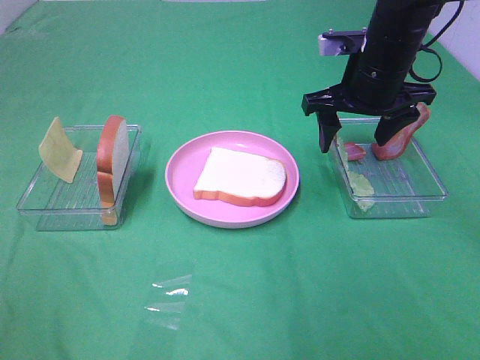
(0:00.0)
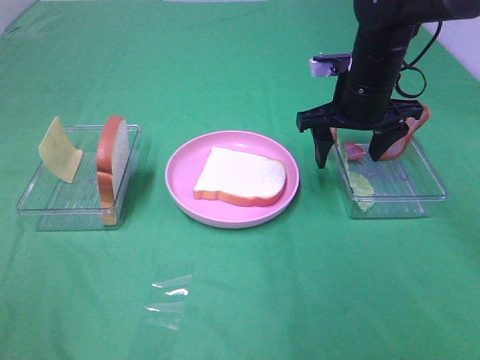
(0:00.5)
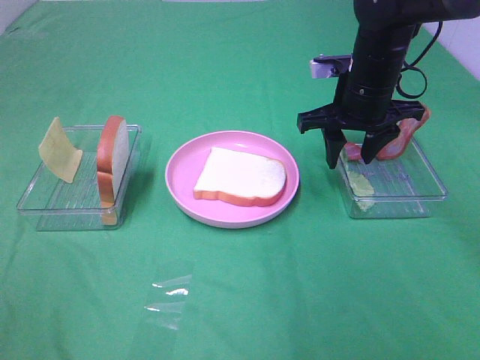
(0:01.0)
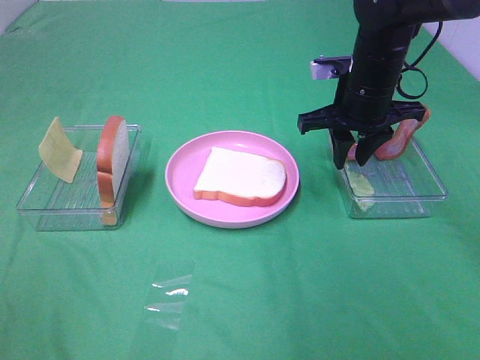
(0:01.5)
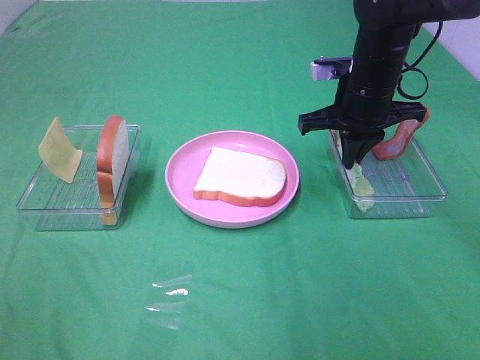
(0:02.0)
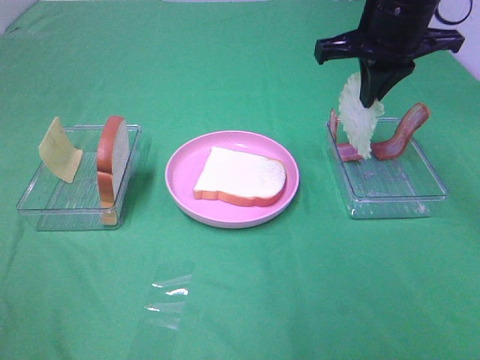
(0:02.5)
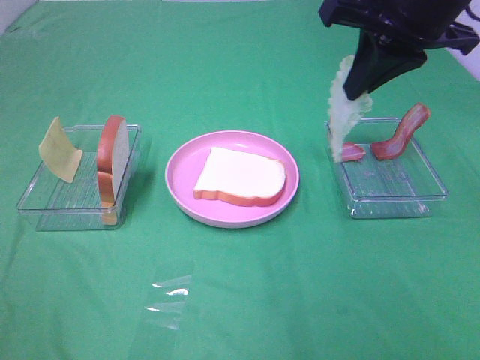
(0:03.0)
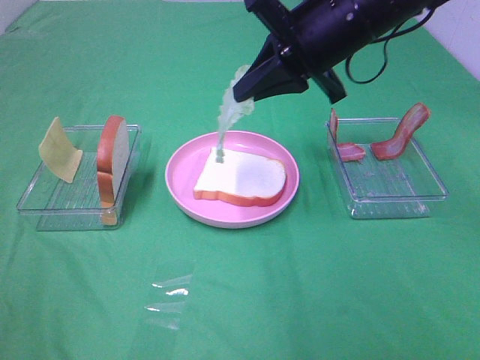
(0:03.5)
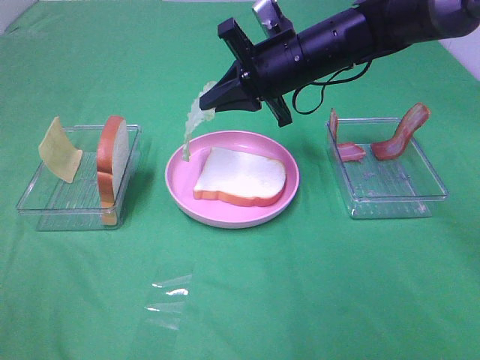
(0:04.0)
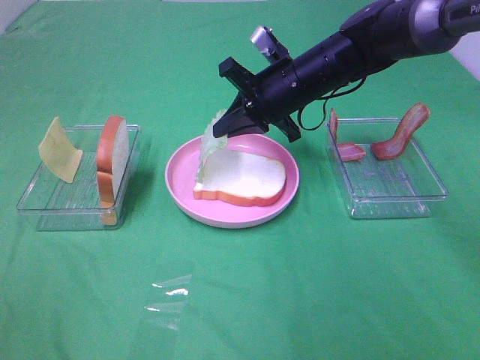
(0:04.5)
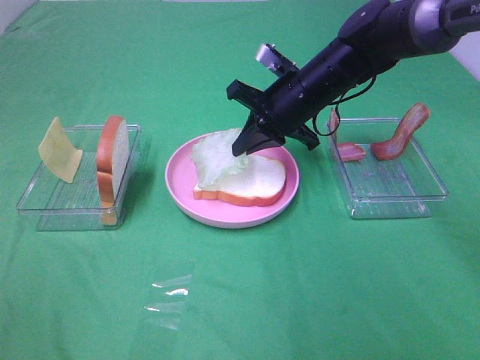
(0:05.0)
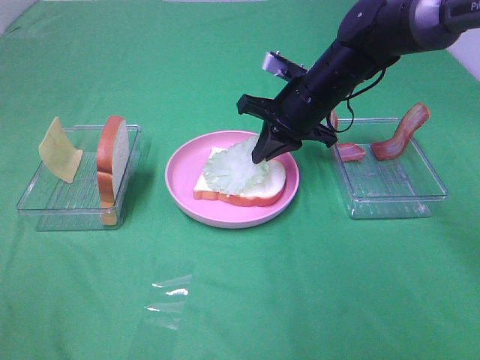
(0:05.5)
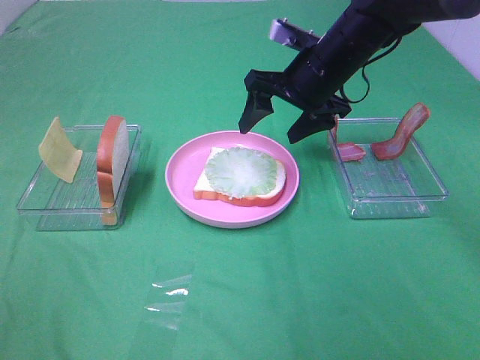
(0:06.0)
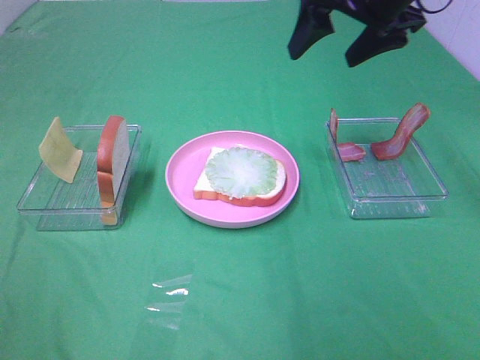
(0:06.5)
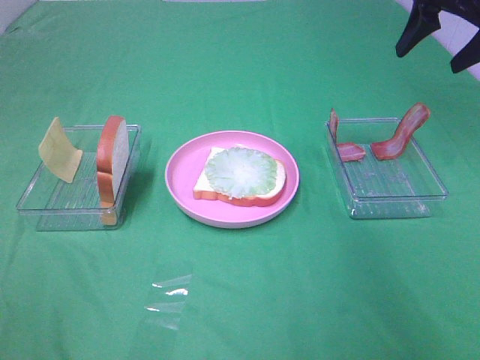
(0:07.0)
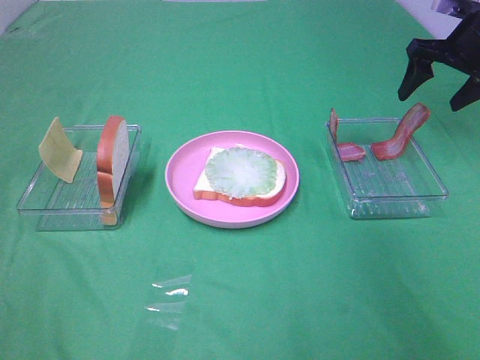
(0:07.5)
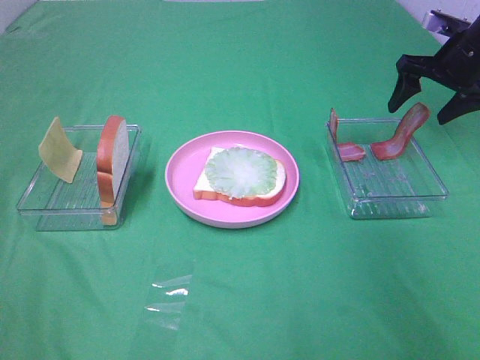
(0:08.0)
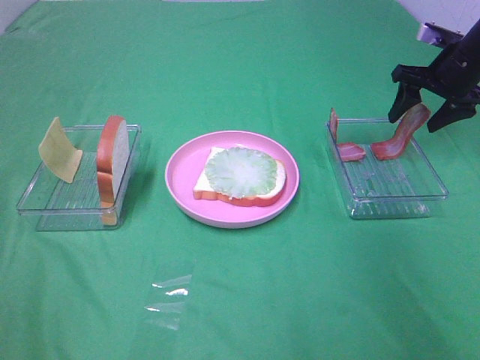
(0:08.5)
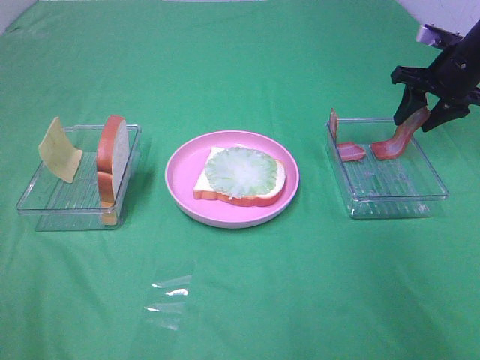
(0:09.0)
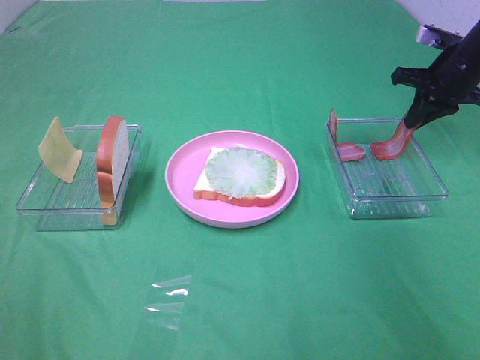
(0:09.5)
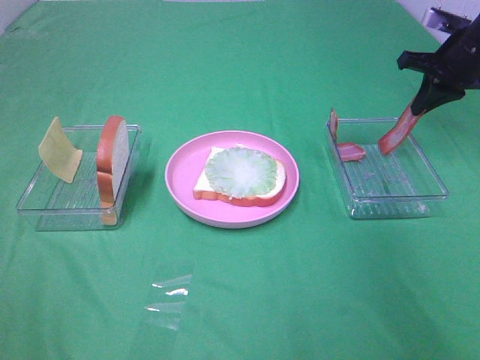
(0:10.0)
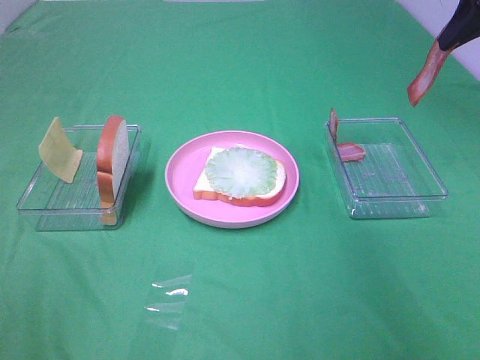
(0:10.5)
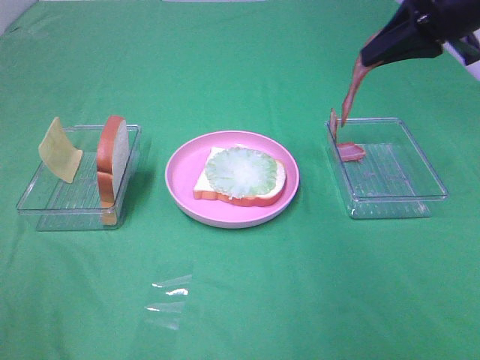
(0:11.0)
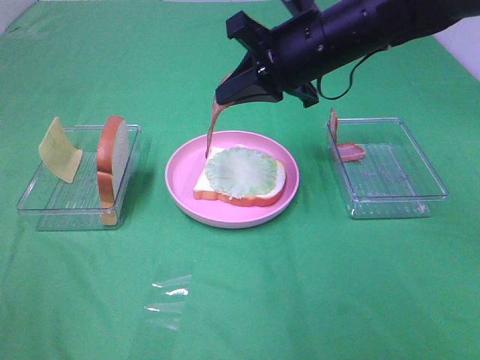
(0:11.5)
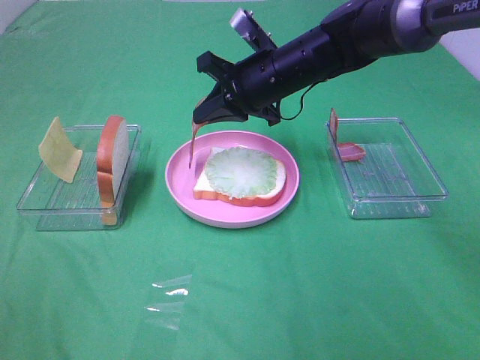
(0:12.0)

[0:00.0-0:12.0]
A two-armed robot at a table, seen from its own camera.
Task of the whole recording: Make sandwiches.
Step, 0:02.0 to 0:05.5: Right hand:place the lettuce slice on the bread slice.
Step, 0:06.0 to 0:09.5: Right hand:grab the bacon.
0:00.0 to 0:02.0: The right gripper closes its fingers.
0:02.0 to 0:04.0: The right gripper travels to the left by roughly 10 cm, and travels upward and back again, about 15 cm each way.
0:04.0 to 0:06.0: The right gripper opens its fingers.
0:06.0 to 0:08.0: The right gripper shifts roughly 20 cm to the right.
0:08.0 to 0:10.0: The right gripper closes up.
0:10.0 to 0:12.0: The right gripper is displaced to the left by approximately 25 cm.

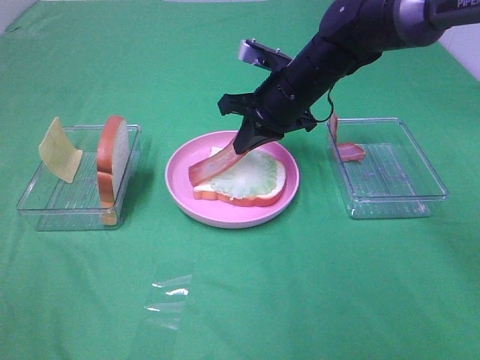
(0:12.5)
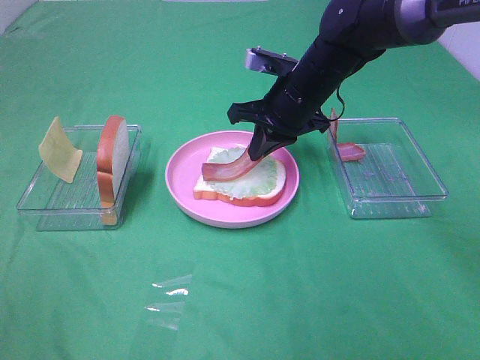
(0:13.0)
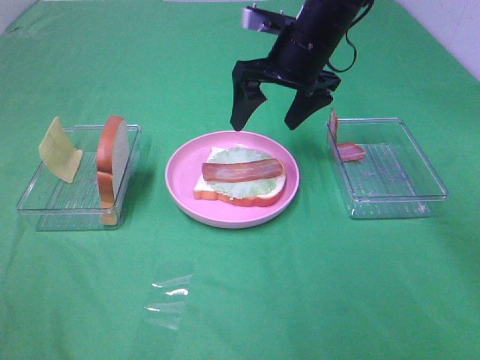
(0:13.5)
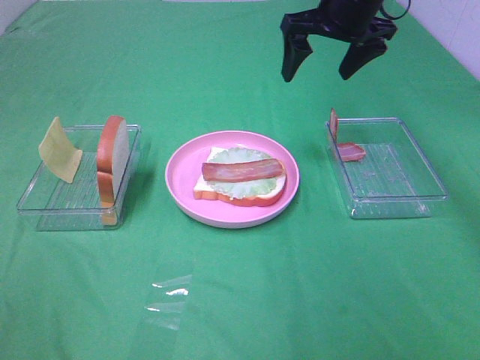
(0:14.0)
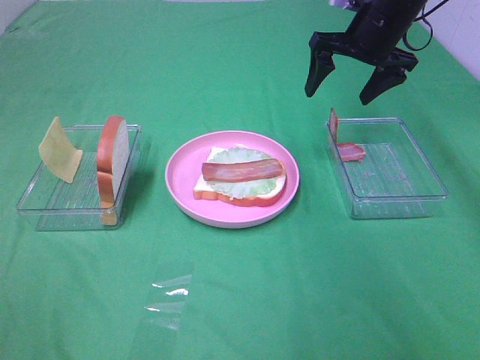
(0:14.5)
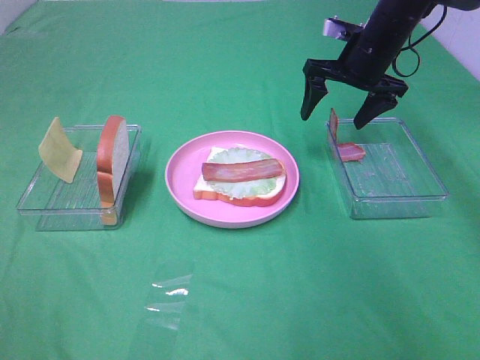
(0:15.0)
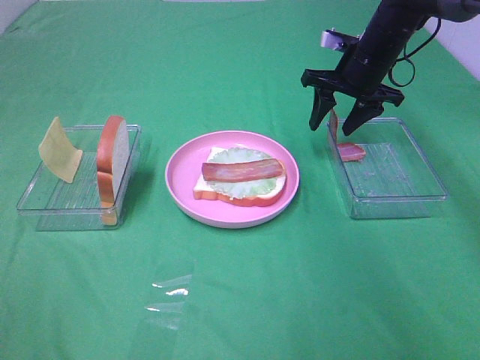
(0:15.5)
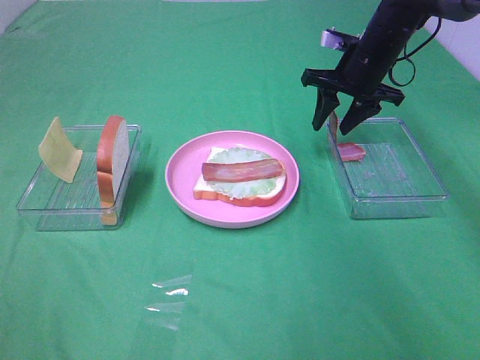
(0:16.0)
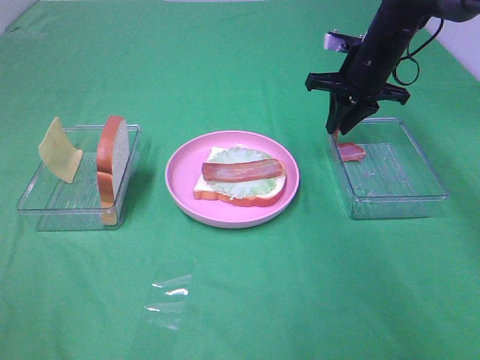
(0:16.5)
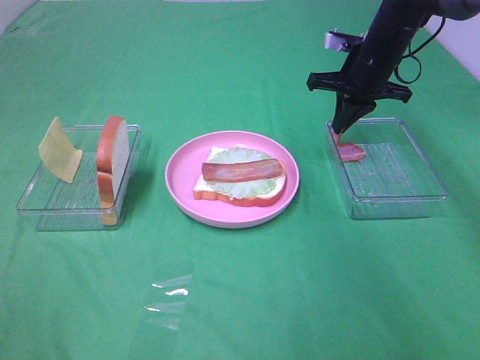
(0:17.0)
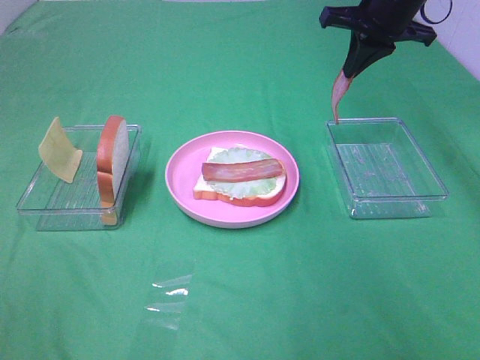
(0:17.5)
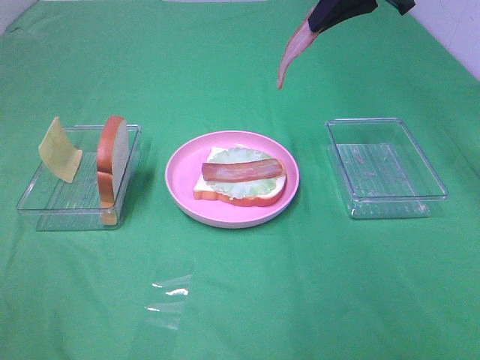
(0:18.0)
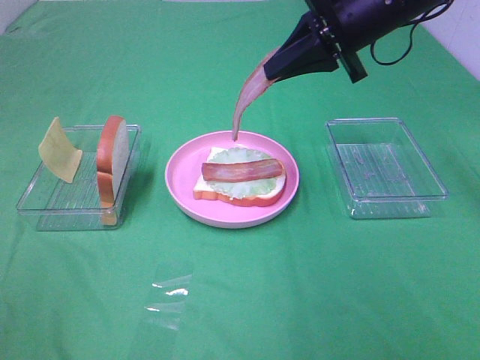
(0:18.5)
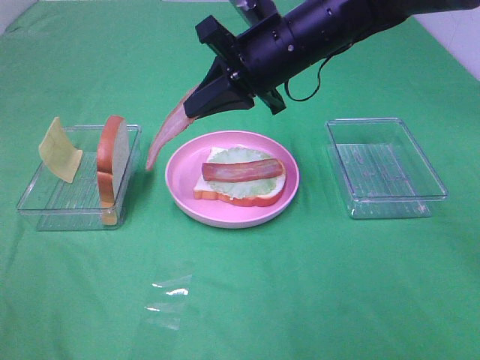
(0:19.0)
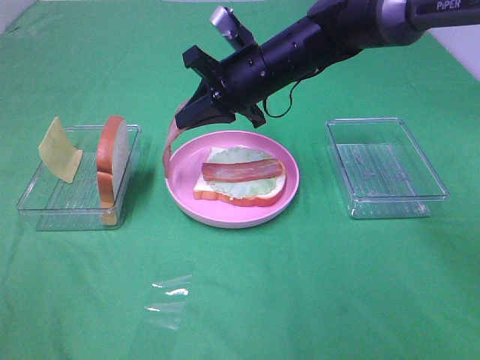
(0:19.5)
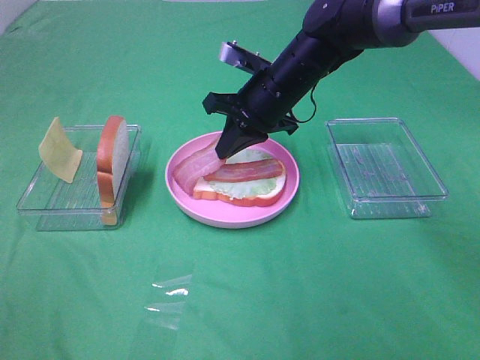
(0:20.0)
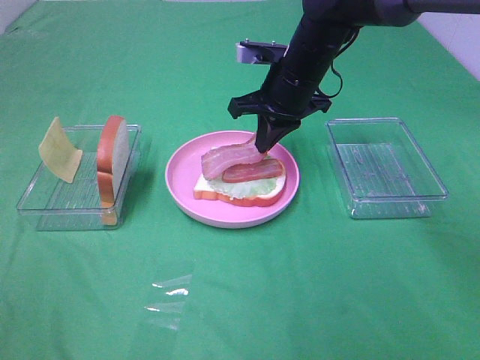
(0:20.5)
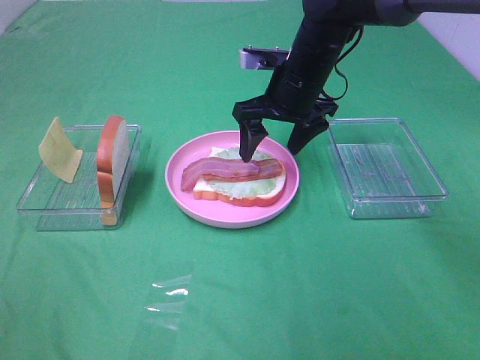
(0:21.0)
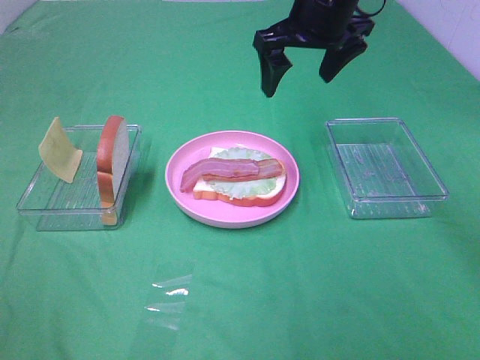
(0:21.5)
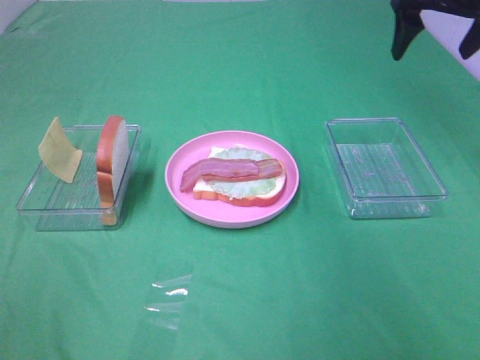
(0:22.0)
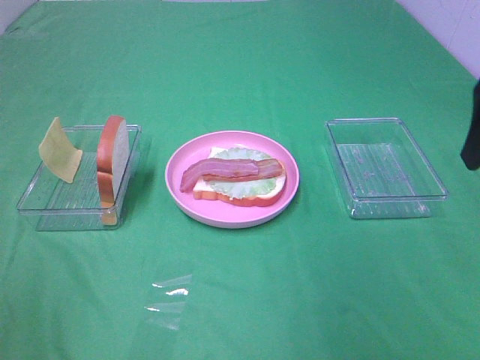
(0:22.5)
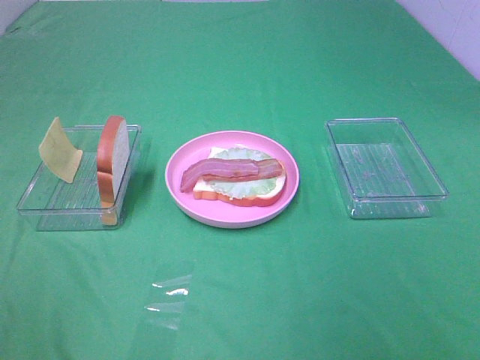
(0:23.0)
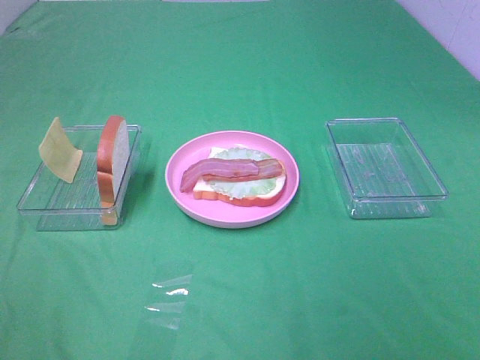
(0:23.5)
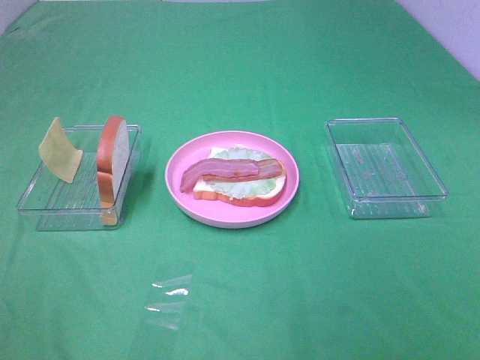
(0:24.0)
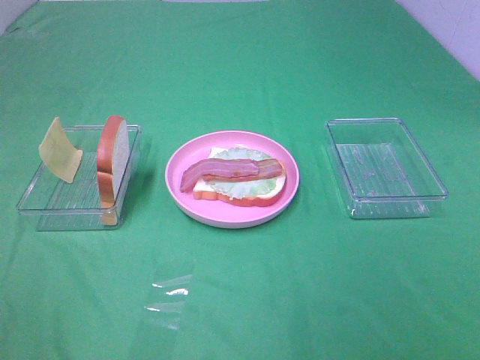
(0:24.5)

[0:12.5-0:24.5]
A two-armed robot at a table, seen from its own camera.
Task of the whole recording: Make sandwiches.
Step, 0:13.5 to 0:16.5: Right hand:grab the bacon.
Step, 0:17.0 to 0:21.0: Right hand:place bacon on bacon.
0:12.5 to 0:14.5: The right gripper moves to the right, forward and upward, about 15 cm, and opens.
0:14.5 to 0:16.5: The right gripper heads downward, covering some 5 cm, and closes its fingers.
0:16.5 to 0:18.5: The right gripper is displaced backward, upward and to the left by roughly 15 cm.
0:18.5 to 0:20.5: The right gripper is displaced downward and to the left by about 10 cm.
0:20.5 to 0:22.5: The right gripper moves to the right, backward and upward, about 30 cm, and opens its fingers.

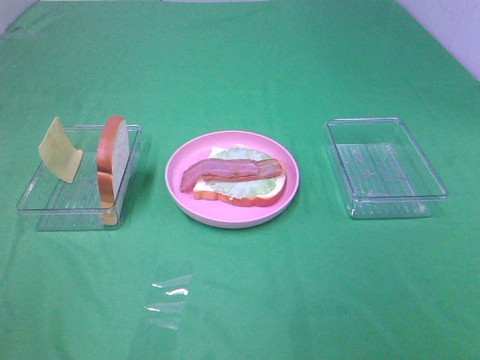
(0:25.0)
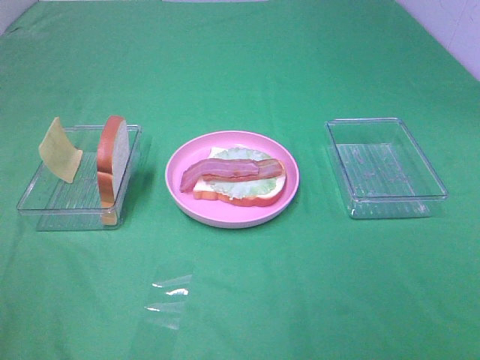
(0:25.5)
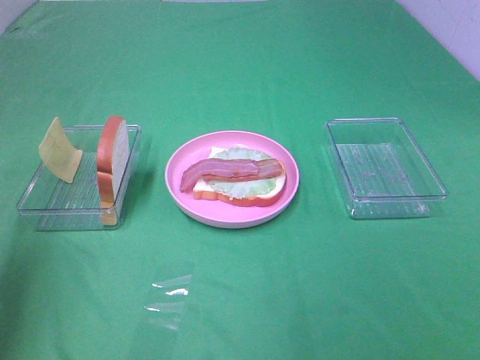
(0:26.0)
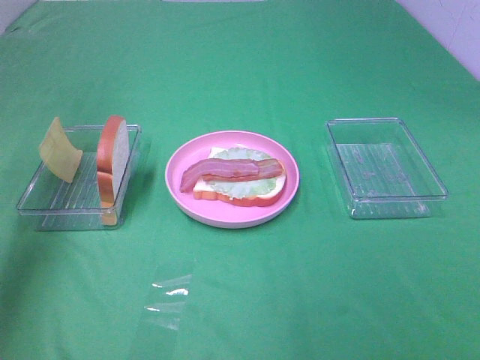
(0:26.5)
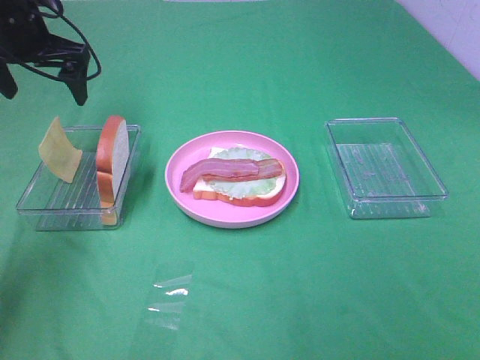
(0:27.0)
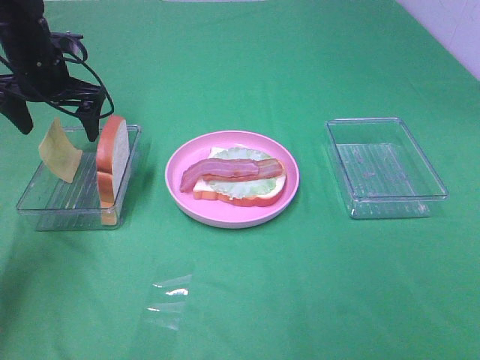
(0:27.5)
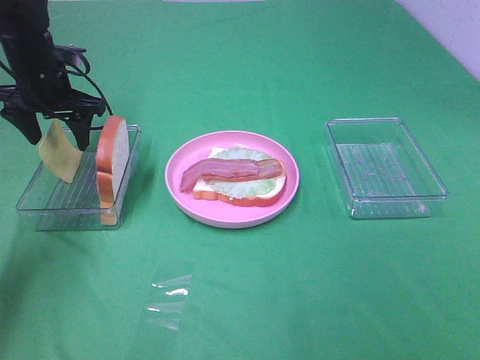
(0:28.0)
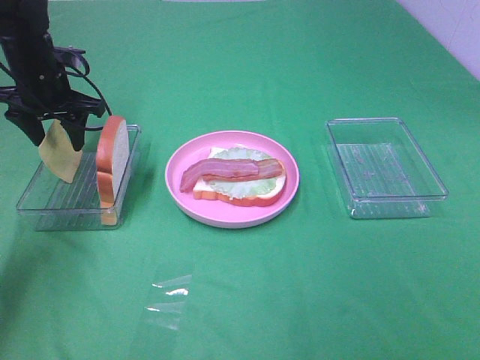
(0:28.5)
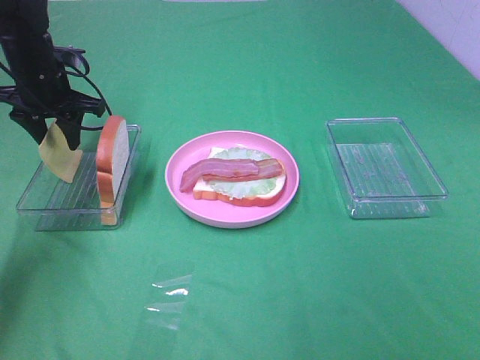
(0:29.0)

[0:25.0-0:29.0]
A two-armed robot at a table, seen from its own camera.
Task of the whole recording: Make sandwiches.
0:25.0 to 0:27.0: The left gripper is displaced forward by about 50 cm.
0:27.0 to 0:29.0: The left gripper goes about 10 cm downward, and closes up.
